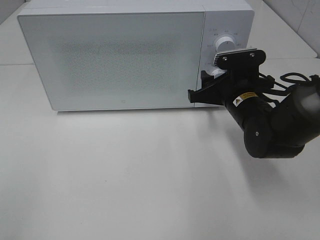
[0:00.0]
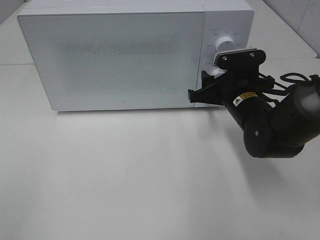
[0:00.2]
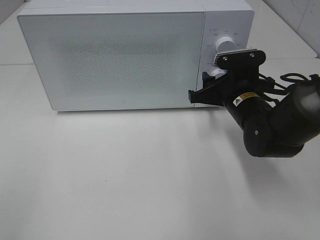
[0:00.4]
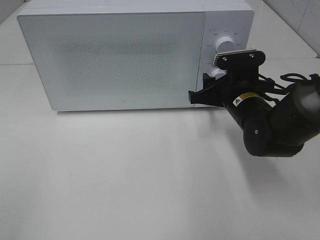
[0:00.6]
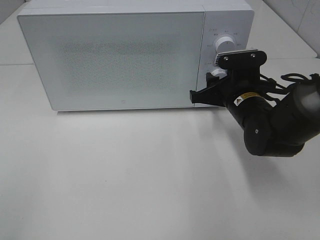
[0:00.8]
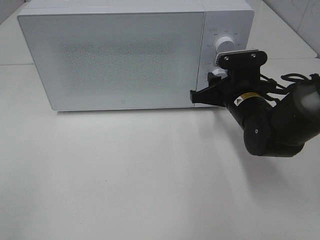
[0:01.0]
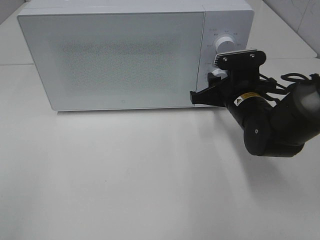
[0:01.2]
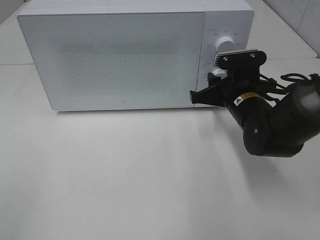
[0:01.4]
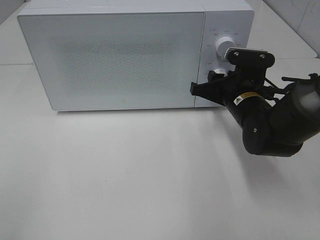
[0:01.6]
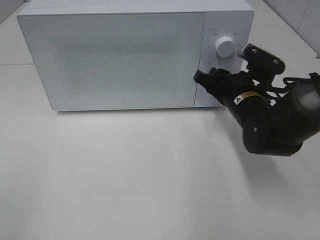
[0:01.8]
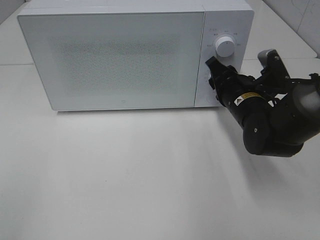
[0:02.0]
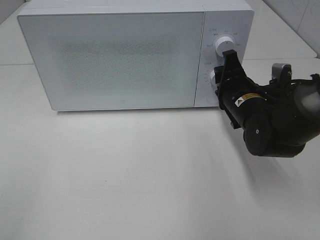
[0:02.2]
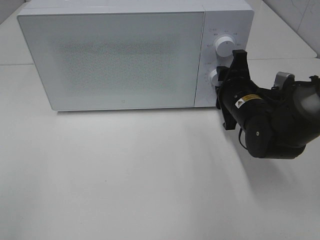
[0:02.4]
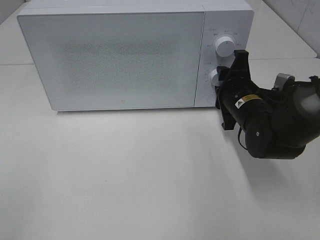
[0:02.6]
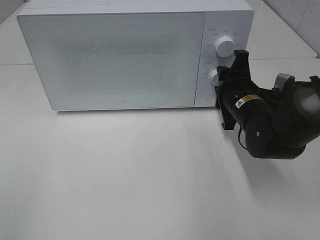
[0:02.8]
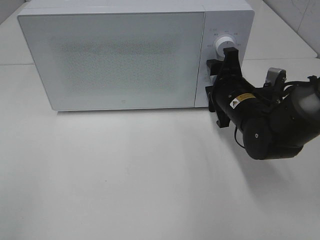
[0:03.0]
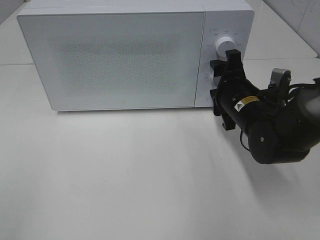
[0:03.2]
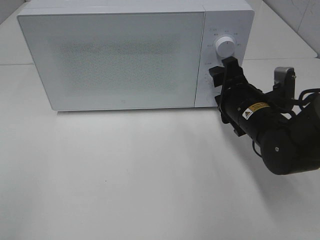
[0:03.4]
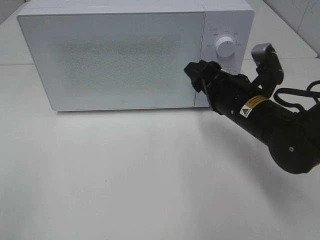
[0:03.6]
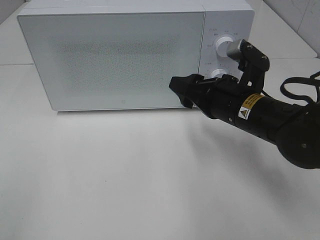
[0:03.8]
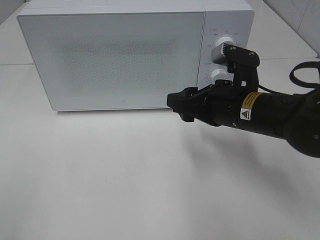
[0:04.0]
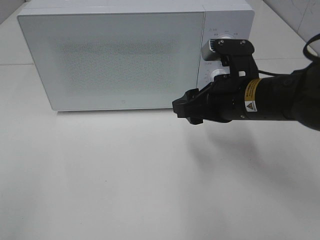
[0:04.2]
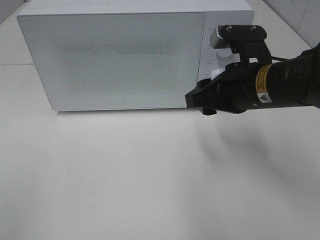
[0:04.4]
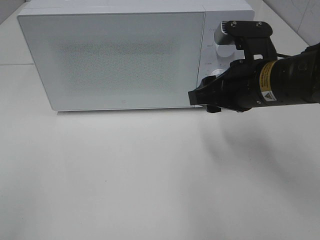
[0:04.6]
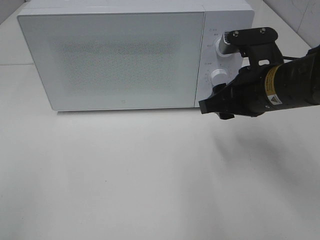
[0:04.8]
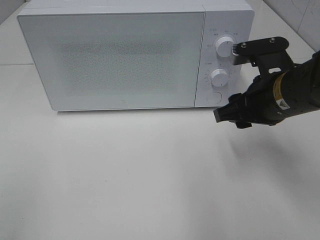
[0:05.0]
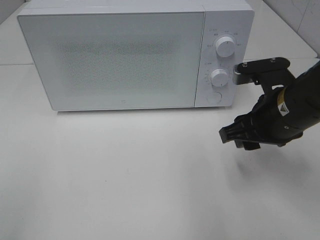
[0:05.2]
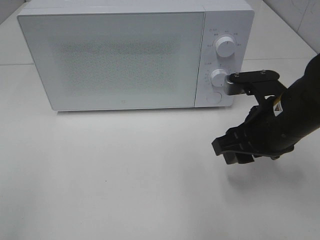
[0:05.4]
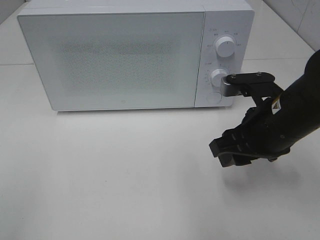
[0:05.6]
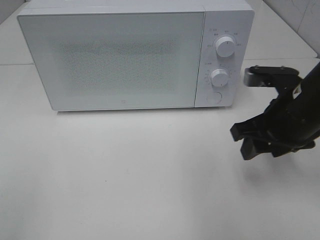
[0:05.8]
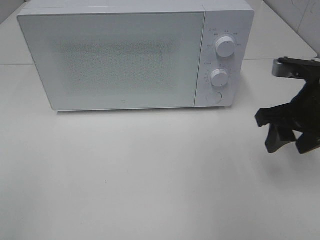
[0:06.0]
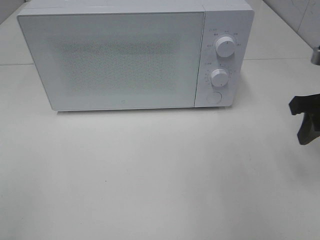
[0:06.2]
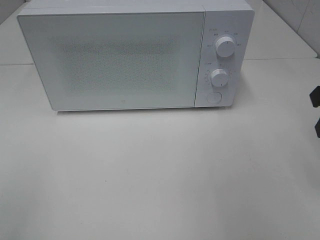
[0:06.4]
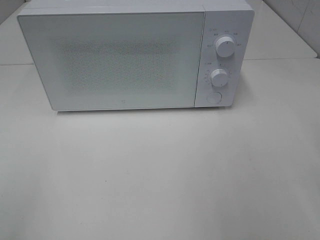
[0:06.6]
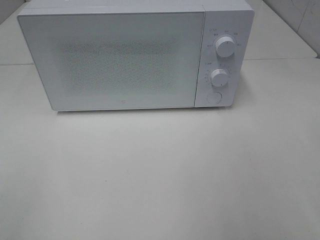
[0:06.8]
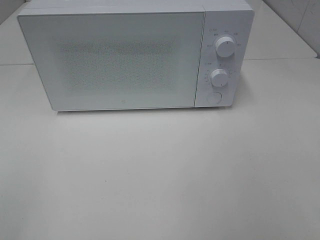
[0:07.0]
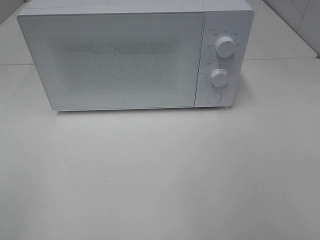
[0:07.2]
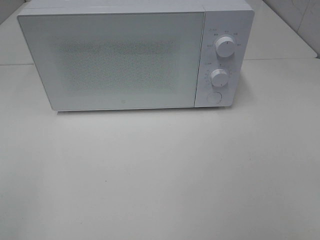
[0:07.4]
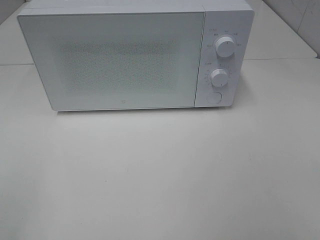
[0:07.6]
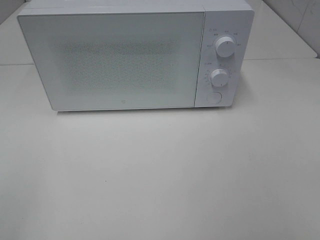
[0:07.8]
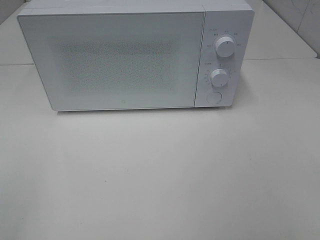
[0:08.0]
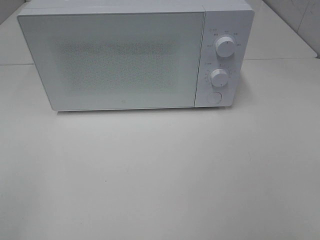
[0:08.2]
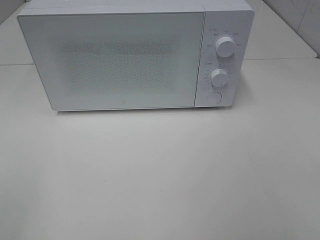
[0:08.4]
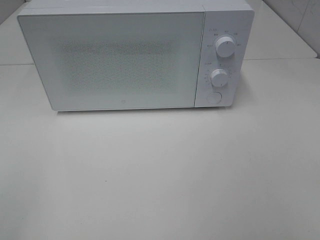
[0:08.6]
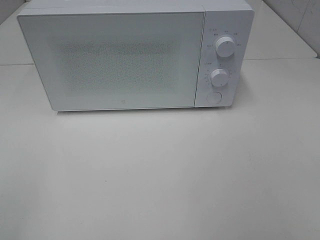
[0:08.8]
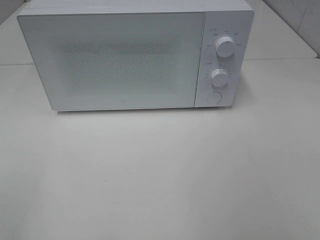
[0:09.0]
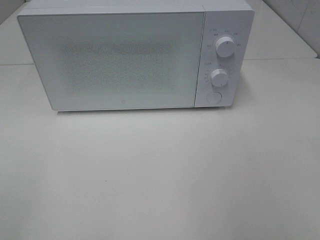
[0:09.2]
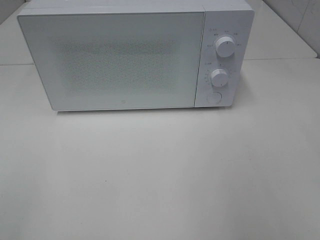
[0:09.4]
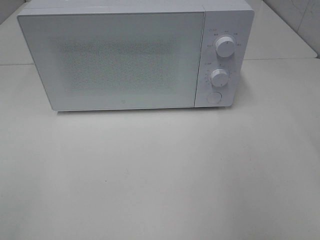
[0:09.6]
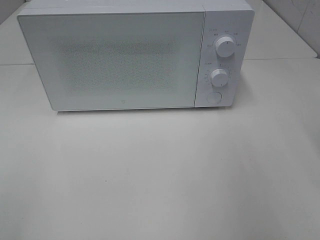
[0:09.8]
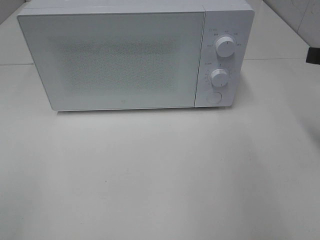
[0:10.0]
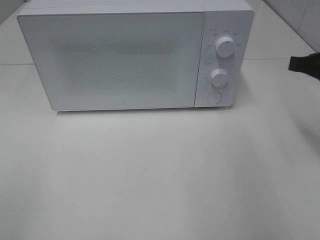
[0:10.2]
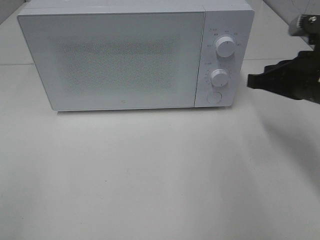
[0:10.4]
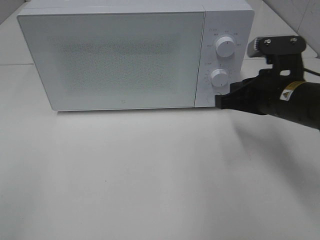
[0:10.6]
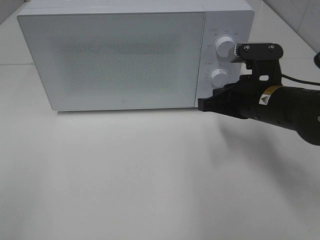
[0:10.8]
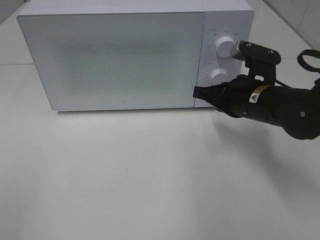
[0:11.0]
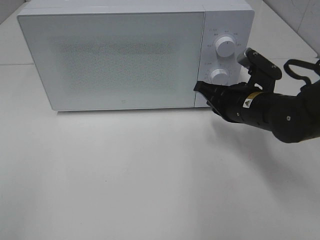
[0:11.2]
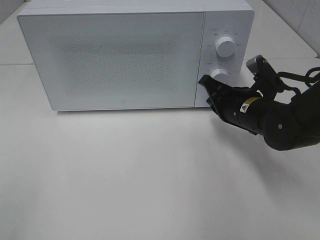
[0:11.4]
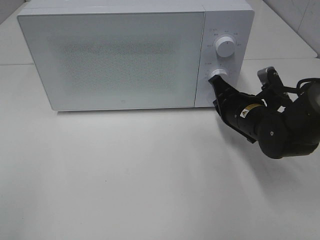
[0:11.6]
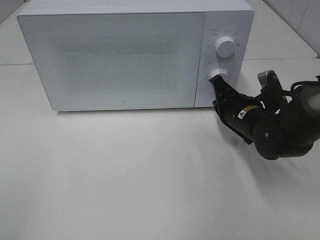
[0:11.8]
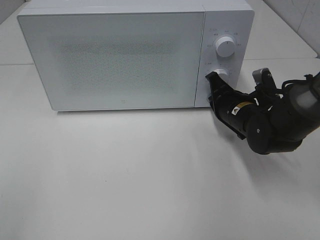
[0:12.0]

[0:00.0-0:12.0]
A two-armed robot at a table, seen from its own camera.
Task of the whole recording: Heat the burger.
Step, 0:00.0 to 0:02.8: Right hand: twist timer button.
0:00.0 to 0:01.6: The grippers make only small movements.
0:03.0 to 0:04.4: The right gripper travels upward and backward by approximately 10 cm.
0:04.4 to 0:06.0: The right gripper moves to the right, some 10 cm.
0:06.0 to 0:07.6: The right gripper is displaced backward by about 25 cm.
0:09.0 to 0:10.4: The right gripper moves forward and downward, approximately 25 cm, and closes up.
0:10.4 to 0:12.0: The right gripper heads downward, to the left and forward, covering some 15 cm.

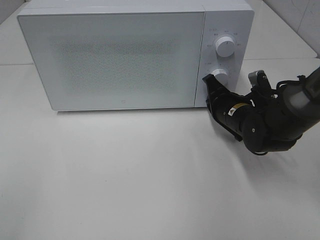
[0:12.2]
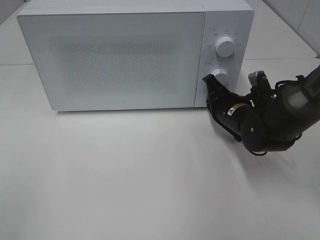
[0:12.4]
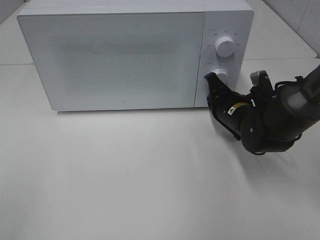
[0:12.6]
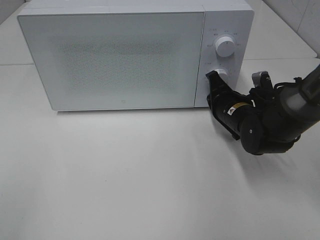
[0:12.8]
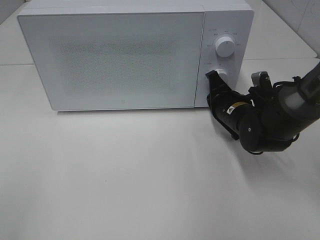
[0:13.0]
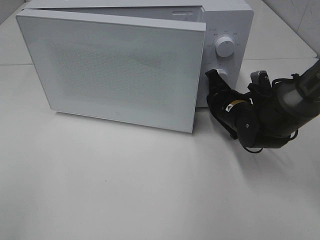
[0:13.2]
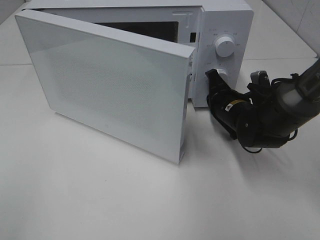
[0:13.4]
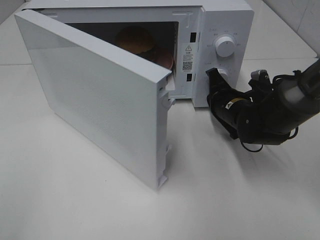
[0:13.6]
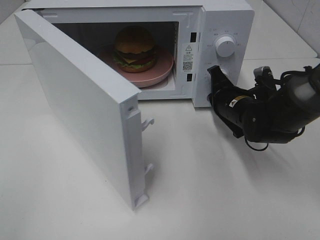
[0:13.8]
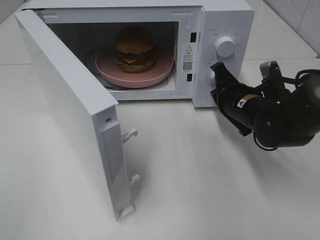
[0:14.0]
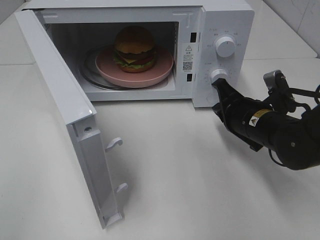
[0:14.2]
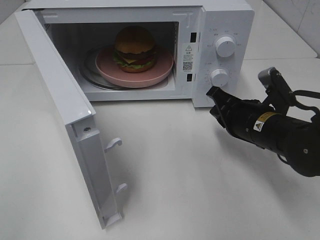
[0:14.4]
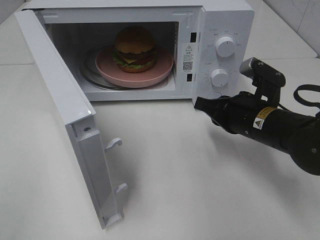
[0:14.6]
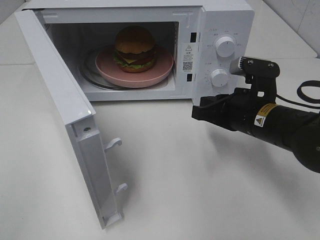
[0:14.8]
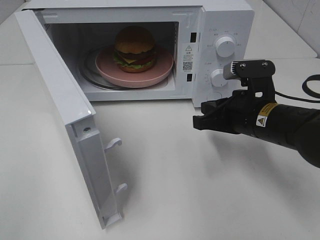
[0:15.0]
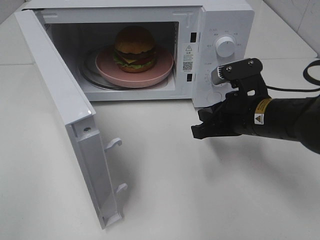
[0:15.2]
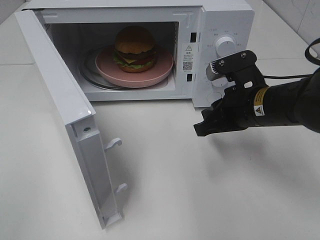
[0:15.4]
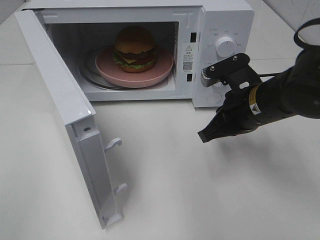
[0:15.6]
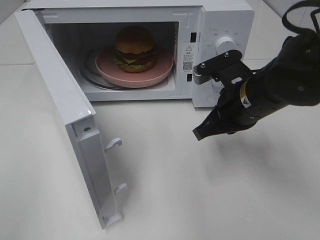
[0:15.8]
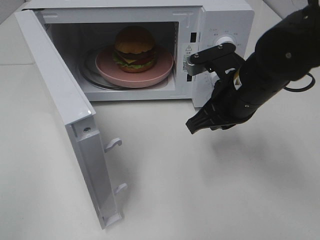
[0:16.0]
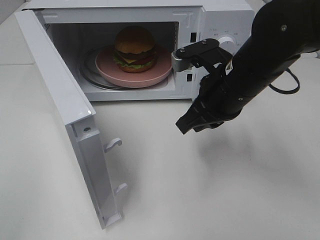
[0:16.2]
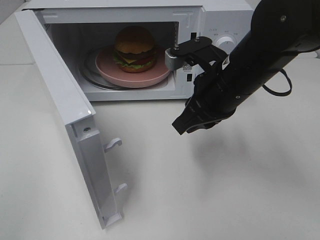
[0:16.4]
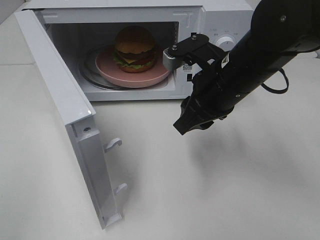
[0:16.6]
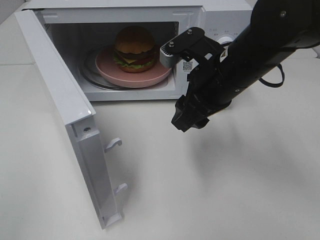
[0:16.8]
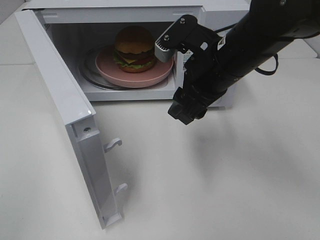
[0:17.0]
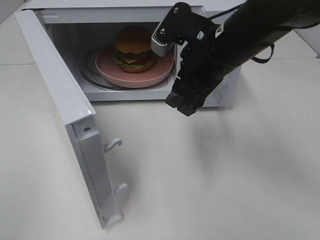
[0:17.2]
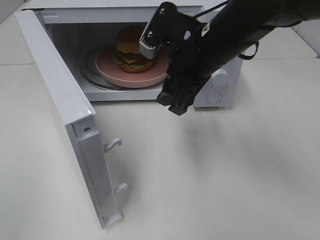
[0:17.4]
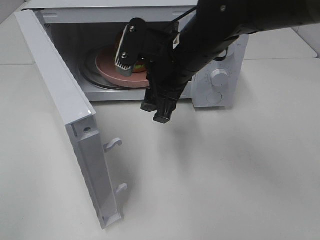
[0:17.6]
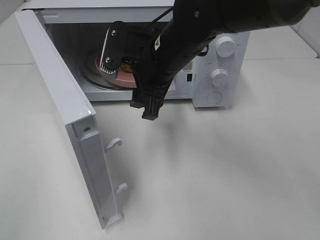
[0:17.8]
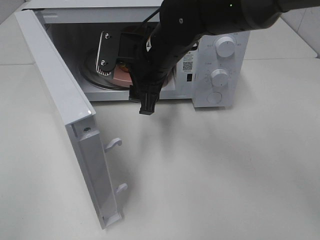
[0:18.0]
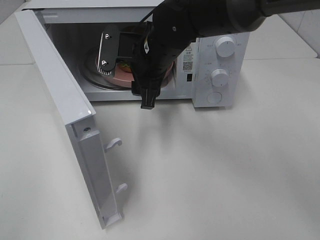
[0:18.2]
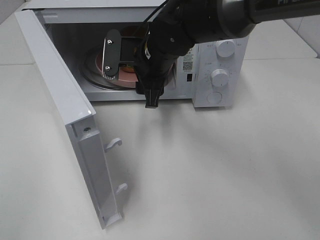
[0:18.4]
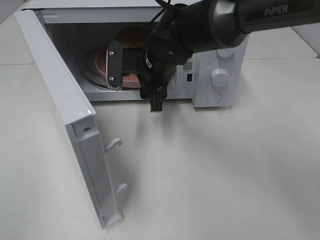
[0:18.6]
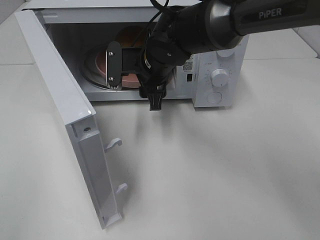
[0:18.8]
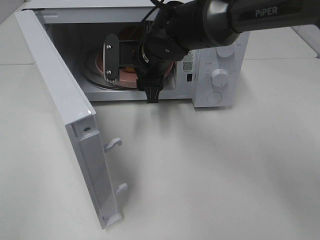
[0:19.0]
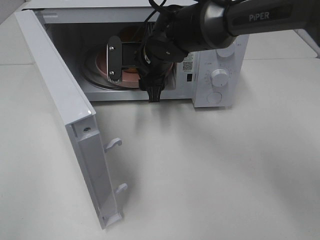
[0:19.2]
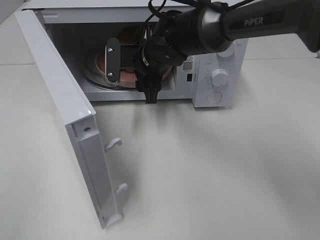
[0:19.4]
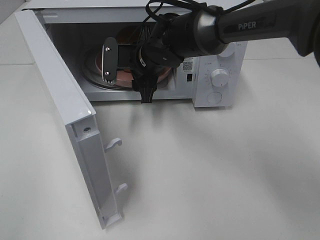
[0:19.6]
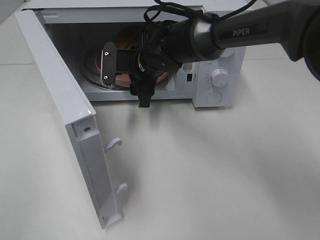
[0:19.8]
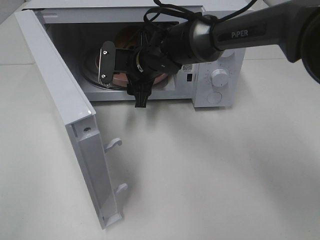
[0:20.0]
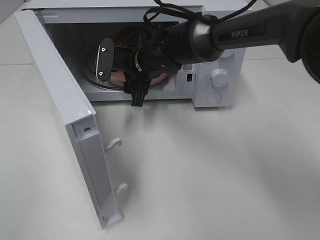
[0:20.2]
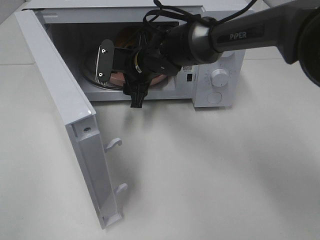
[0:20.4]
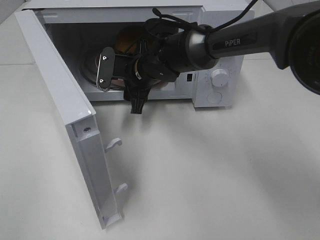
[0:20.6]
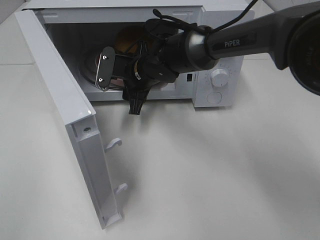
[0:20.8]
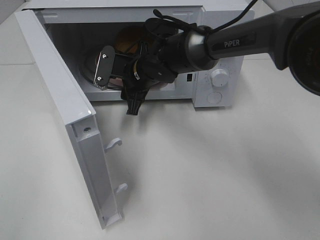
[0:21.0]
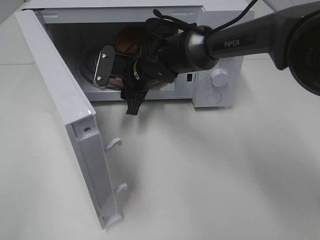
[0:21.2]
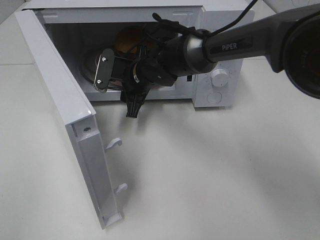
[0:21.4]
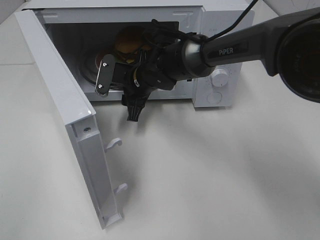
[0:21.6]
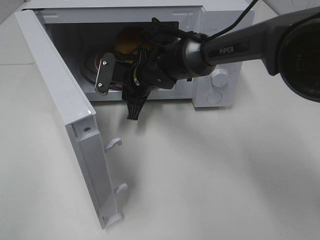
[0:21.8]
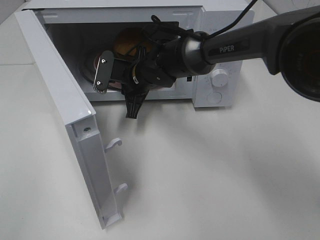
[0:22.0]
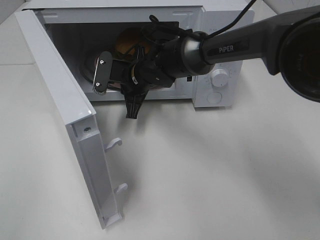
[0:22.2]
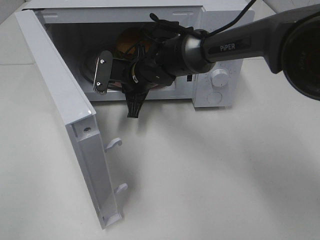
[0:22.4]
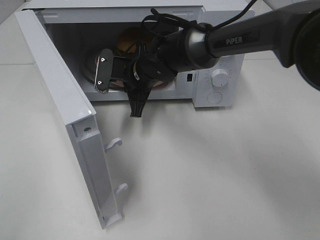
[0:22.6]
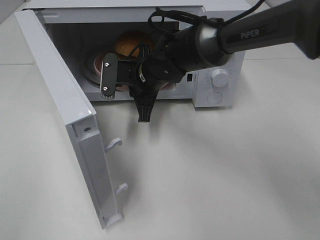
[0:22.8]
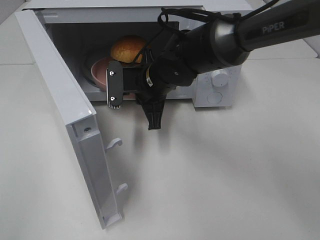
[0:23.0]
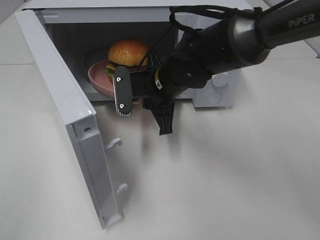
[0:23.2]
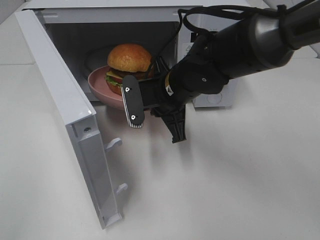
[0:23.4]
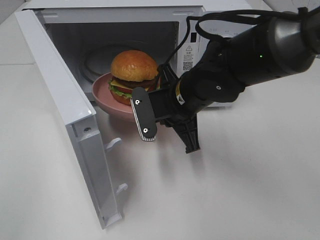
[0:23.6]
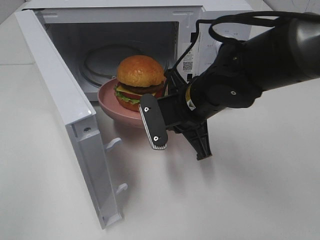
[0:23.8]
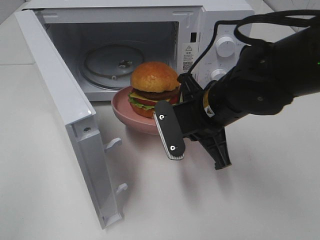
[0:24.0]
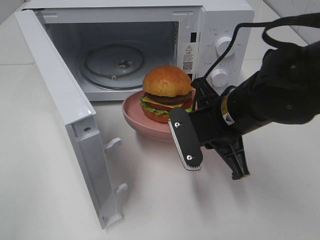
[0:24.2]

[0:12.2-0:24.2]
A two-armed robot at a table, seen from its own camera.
Task of the whole recording: Heat the burger.
Step, 0:14.0 to 0:22.0: Right hand: grab the plate with the hamburger.
0:13.8 to 0:15.2: The right gripper is displaced backward and upward by some 10 cm.
0:15.2 to 0:16.6: The right gripper goes approximately 10 cm upward and to the left, and opens.
0:16.6 to 0:18.2: The right gripper travels to the left and forward by approximately 15 cm.
0:18.2 to 0:19.8: The right gripper is displaced downward by approximately 5 cm.
0:19.8 to 0:21.2: The grippers stay close to where they were, moving slightly.
0:21.2 to 0:22.6: The right gripper closes its fingers.
0:22.6 to 0:24.2: The right gripper goes roughly 20 cm backward and to the right.
